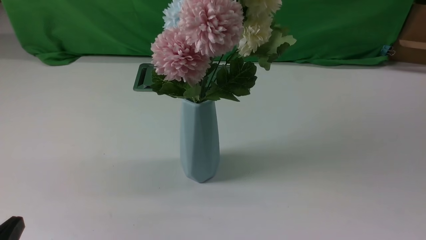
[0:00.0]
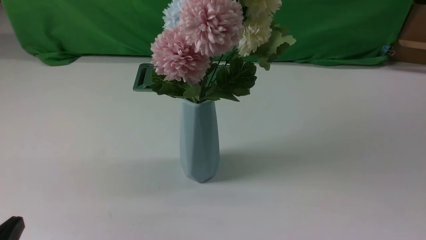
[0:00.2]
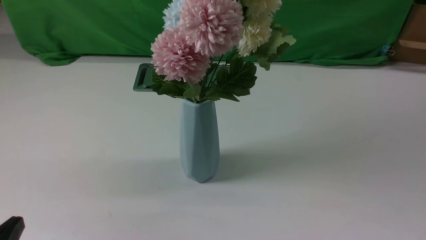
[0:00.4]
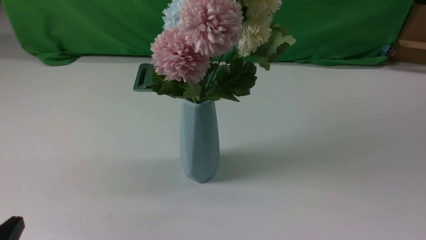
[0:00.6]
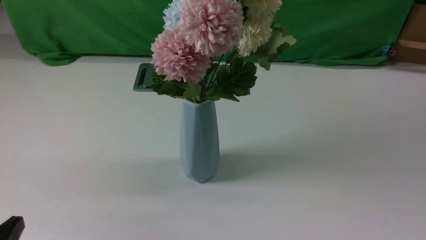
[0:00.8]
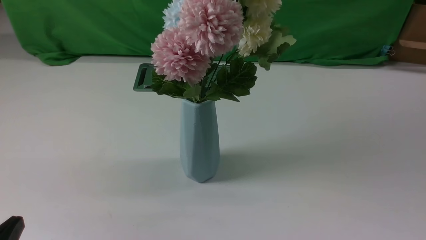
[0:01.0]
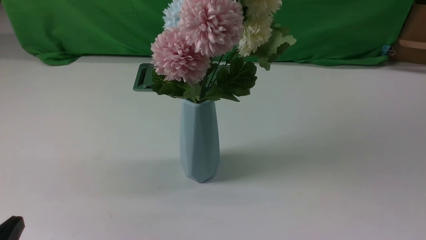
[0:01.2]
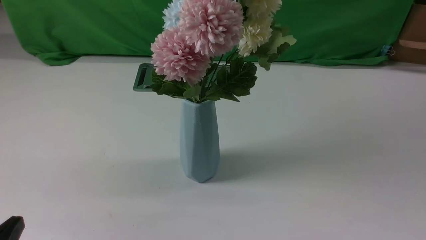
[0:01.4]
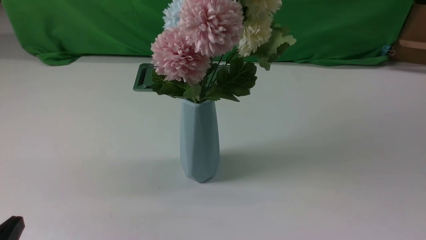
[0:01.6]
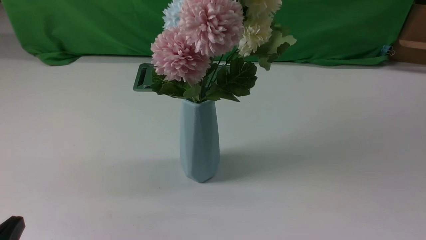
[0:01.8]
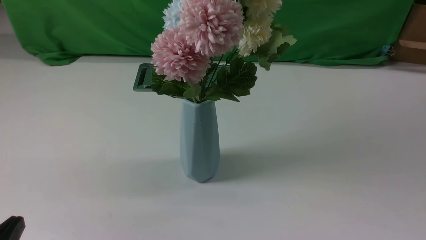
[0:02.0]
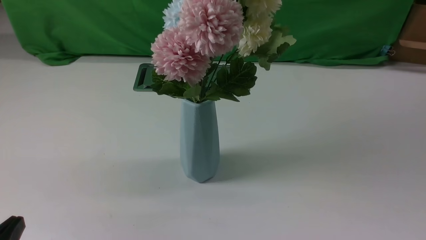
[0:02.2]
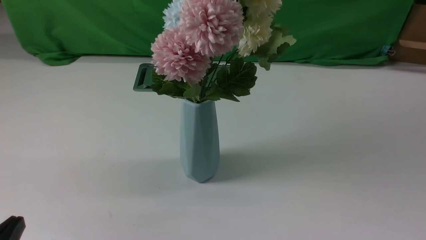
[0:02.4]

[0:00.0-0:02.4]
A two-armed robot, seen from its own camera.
Task of the whole recording: insert the flowers into the vase on the white table.
0:01.2 to 0:02.4: Neither gripper changes place.
